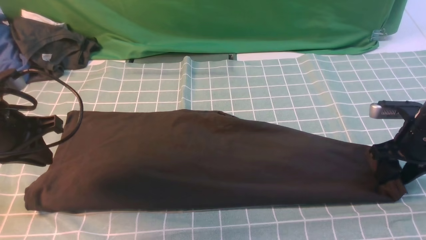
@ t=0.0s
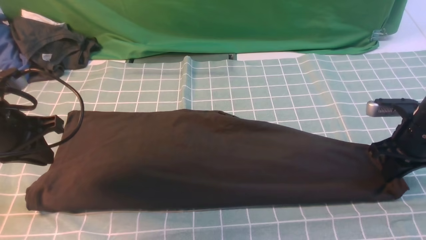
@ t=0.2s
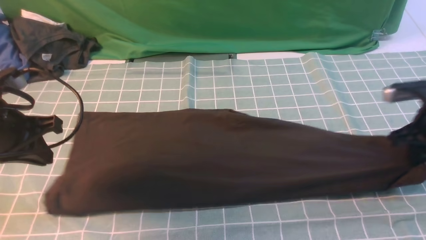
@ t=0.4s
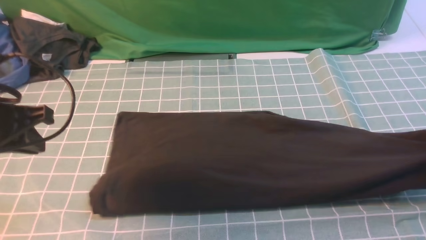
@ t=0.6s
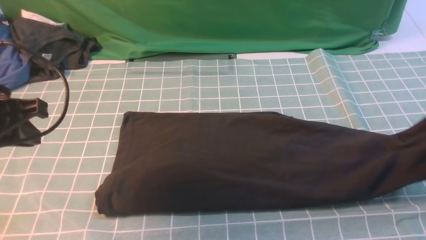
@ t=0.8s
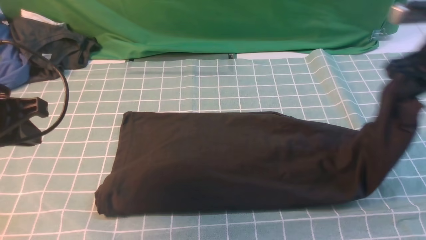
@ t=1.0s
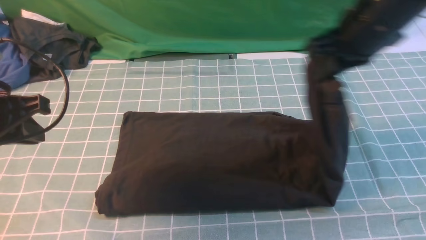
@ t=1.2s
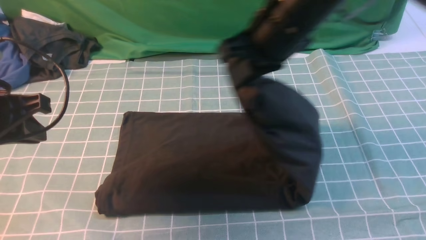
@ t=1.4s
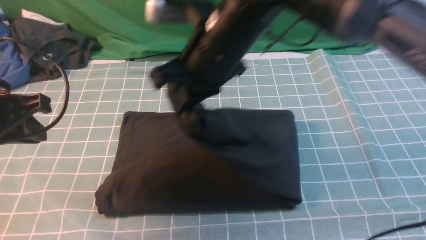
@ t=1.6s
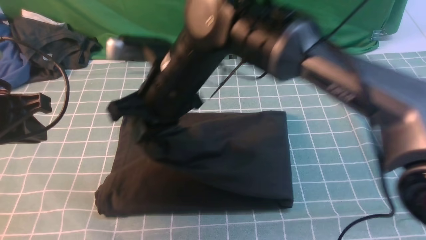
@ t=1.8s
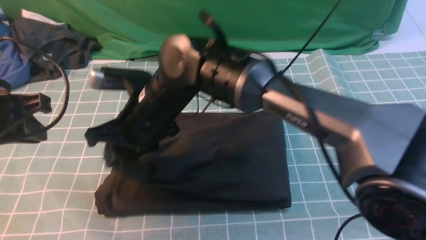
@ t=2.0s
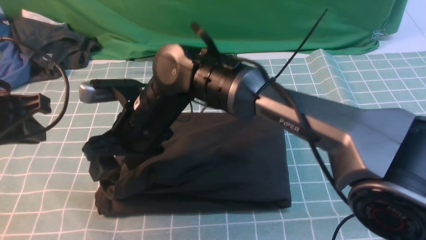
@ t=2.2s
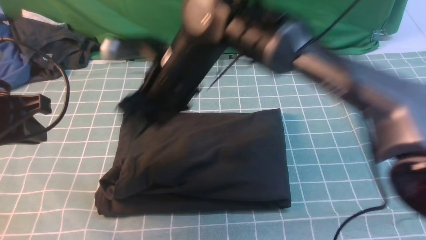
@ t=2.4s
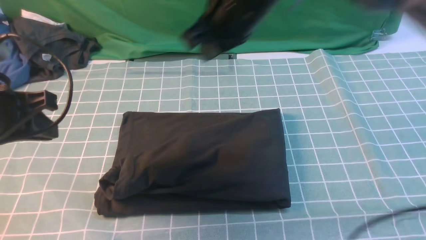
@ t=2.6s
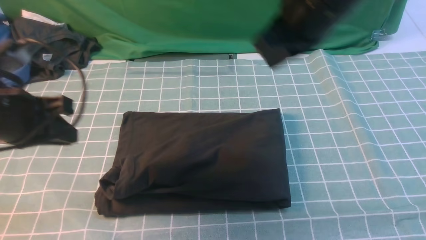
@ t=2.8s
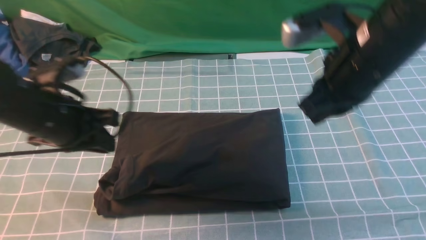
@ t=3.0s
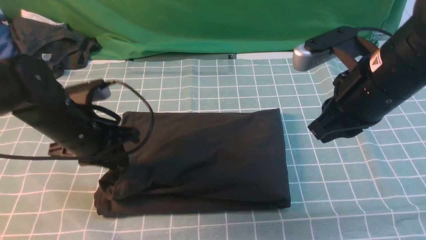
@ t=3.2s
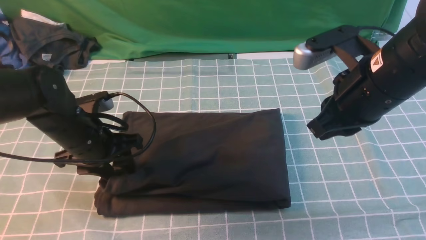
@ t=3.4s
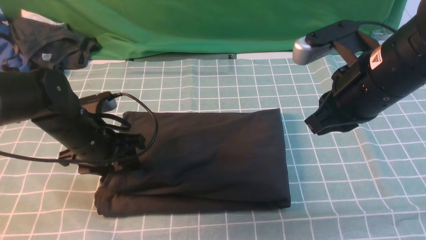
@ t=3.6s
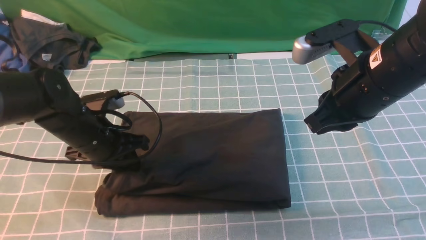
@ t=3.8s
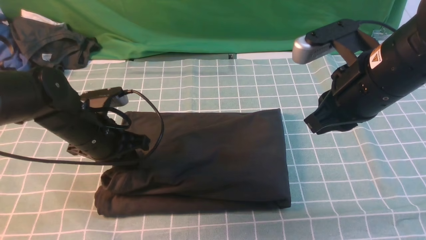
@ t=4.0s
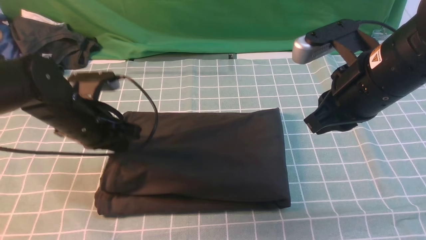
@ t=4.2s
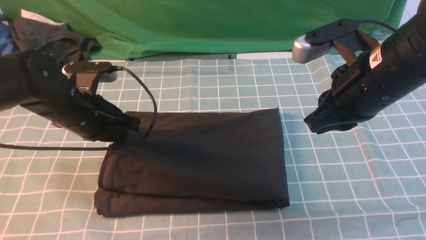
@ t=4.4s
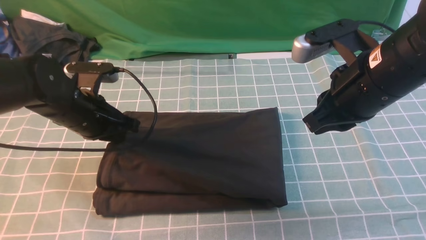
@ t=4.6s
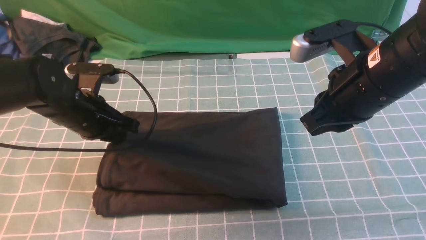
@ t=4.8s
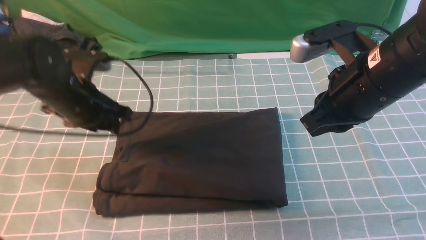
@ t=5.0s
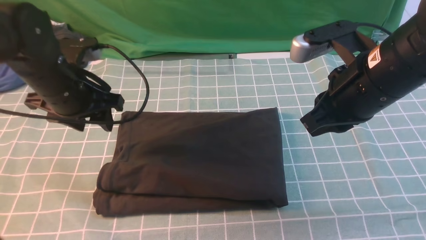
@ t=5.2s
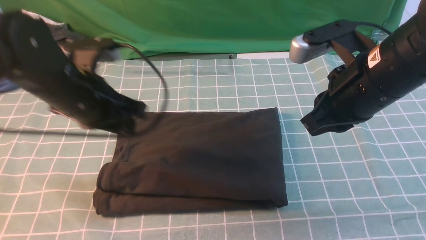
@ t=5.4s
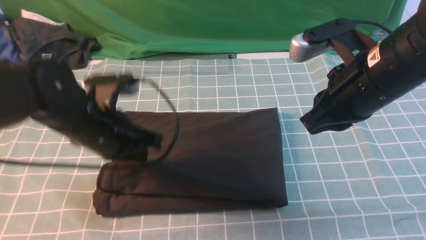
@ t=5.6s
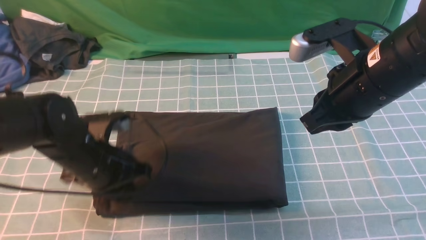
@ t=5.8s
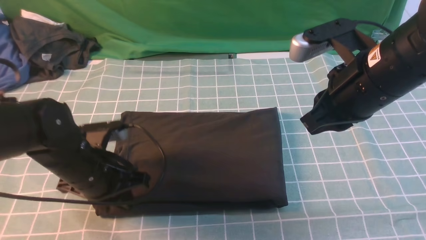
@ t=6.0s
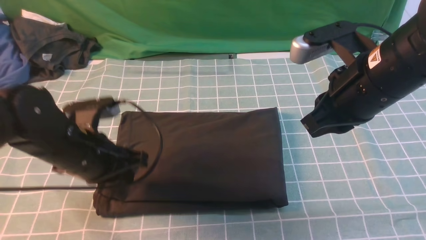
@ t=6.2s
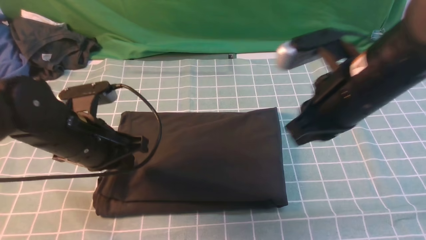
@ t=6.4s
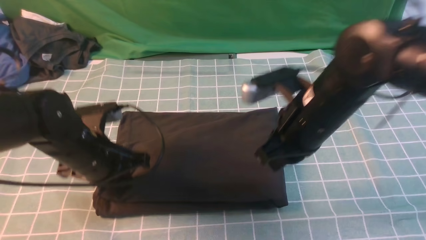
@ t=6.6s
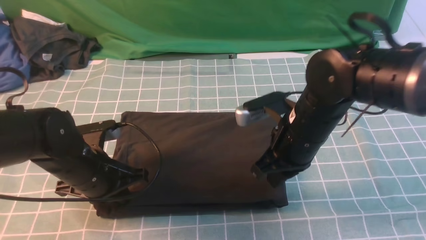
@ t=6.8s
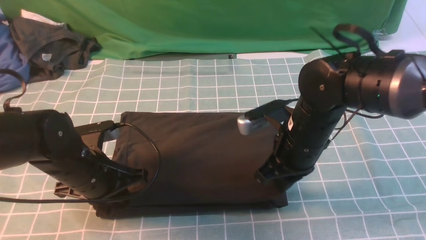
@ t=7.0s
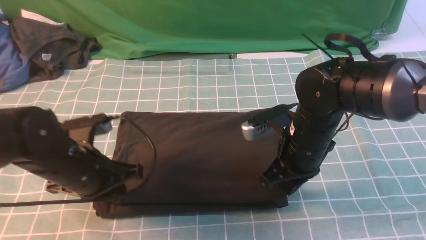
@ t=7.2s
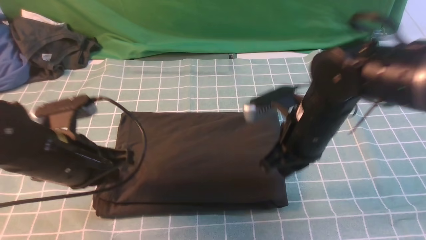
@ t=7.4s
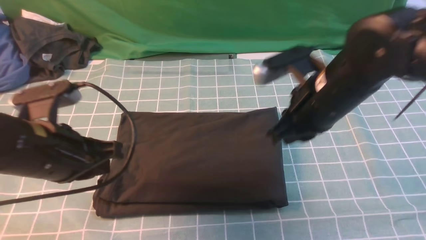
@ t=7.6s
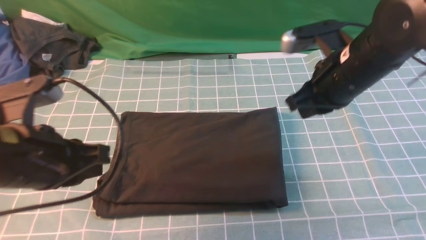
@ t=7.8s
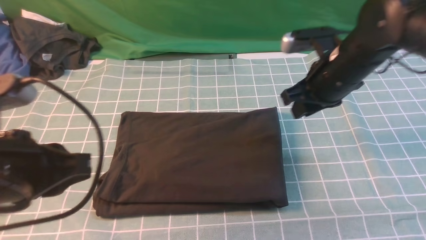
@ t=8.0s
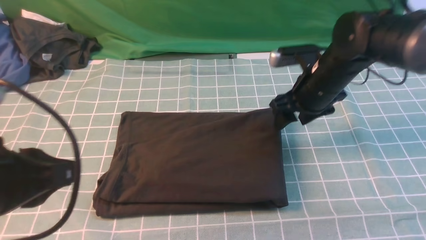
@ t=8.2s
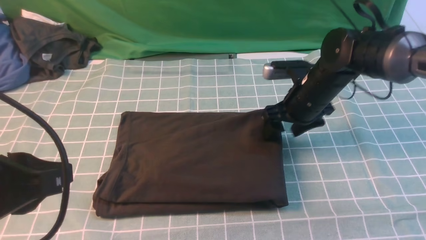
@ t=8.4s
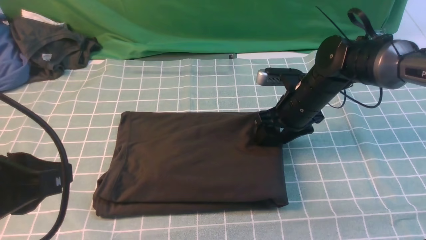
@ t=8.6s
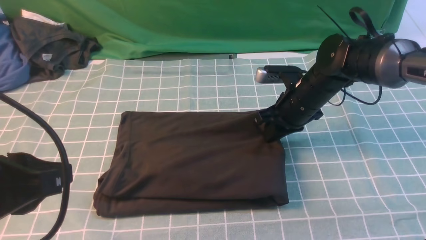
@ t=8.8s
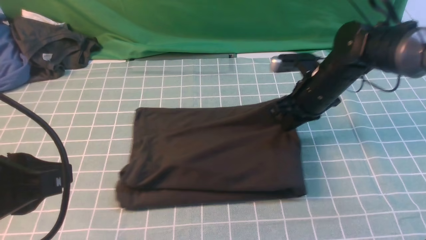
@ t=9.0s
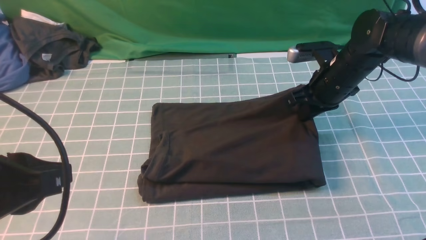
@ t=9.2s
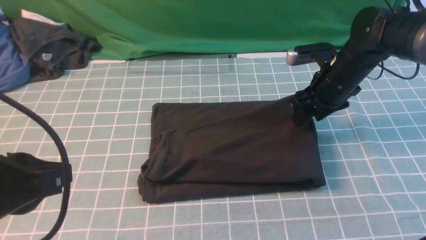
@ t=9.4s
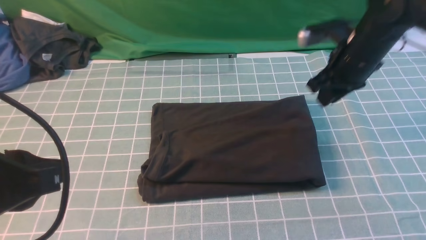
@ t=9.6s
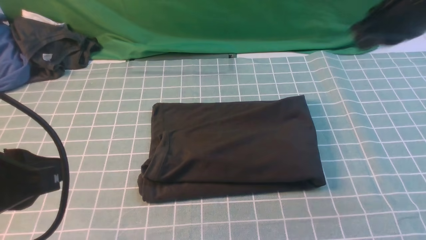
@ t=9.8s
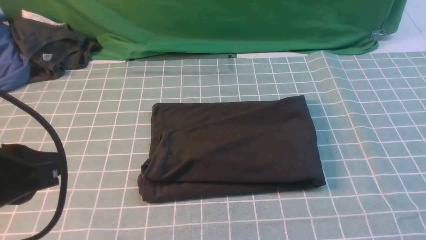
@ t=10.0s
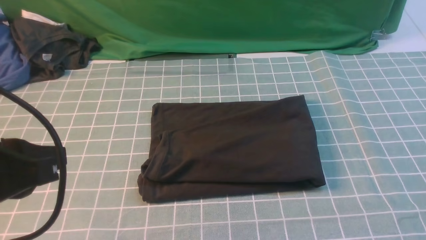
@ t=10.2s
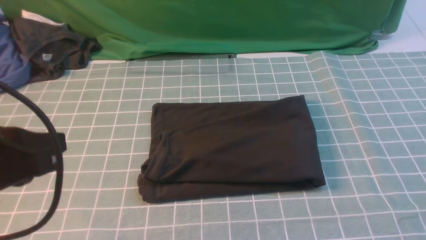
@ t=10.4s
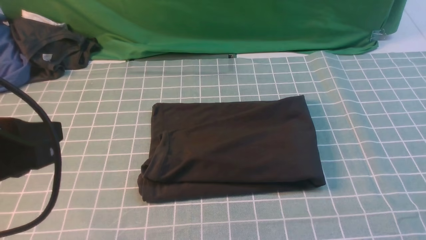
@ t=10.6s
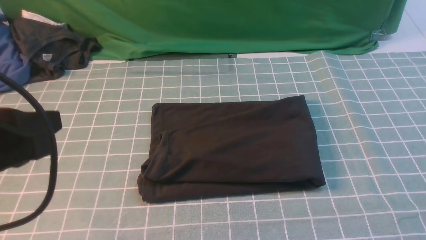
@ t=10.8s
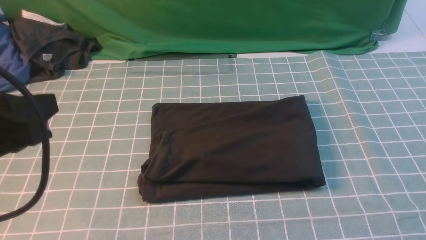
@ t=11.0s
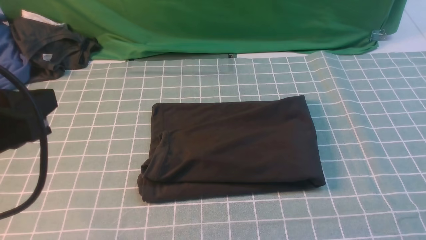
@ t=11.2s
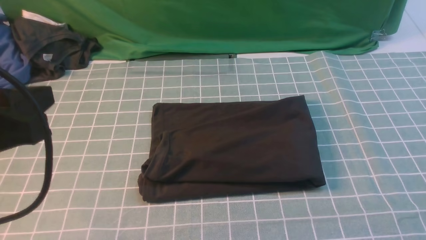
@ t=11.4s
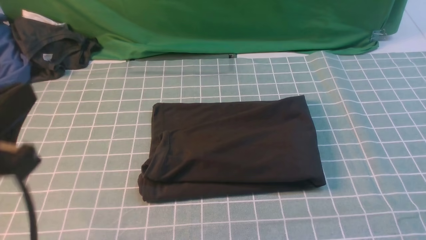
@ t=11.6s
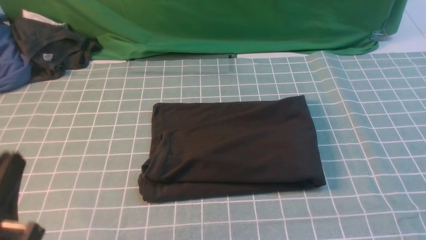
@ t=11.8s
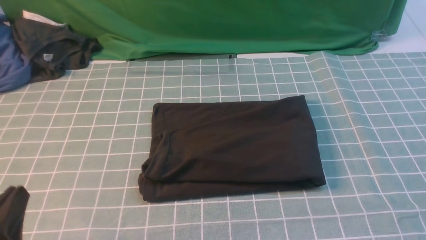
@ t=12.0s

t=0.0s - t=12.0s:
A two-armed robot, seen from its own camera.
Step, t=0.4s - t=2.6s: use the right arm to drag the right edge of the fabric to the left and folds it over the left edge.
t=0.0s - t=1.6s: The left gripper heads upward, covering approximately 5 cm, while the right gripper is displaced to the left and upward by roughly 35 cm, and closes.
t=1.6s - t=3.0s: The right gripper goes approximately 15 cm to the right, and opens, then closes again; the left gripper heads downward and to the right, covering about 10 cm.
t=3.0s - t=4.4s: The left gripper moves some 5 cm, and opens, then closes once more.
t=4.4s - t=6.0s: The left gripper is displaced backward by roughly 5 cm, and opens, then closes once more.
t=6.0s - t=7.6s: The right gripper shifts roughly 5 cm downward. The left gripper travels upward and backward by approximately 10 cm.
t=7.6s - t=9.0s: The left gripper travels backward and upward by approximately 10 cm. Meanwhile the right gripper heads forward and downward, covering some 15 cm, and opens, then closes once more.
t=9.0s - t=10.4s: The right gripper travels backward, upward and to the right by about 35 cm, and opens, then closes again.
t=10.4s - t=12.0s: The left gripper moves downward and backward, some 15 cm.

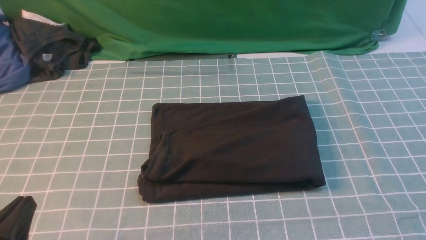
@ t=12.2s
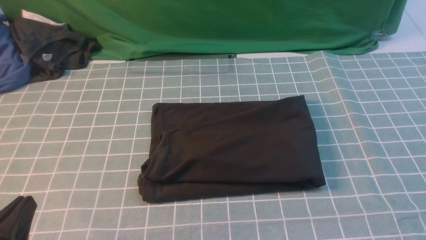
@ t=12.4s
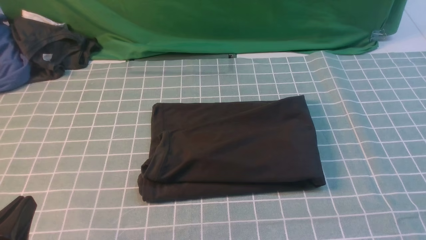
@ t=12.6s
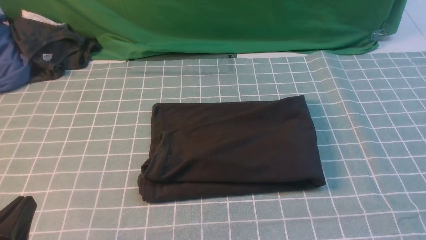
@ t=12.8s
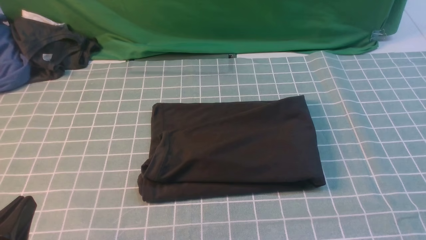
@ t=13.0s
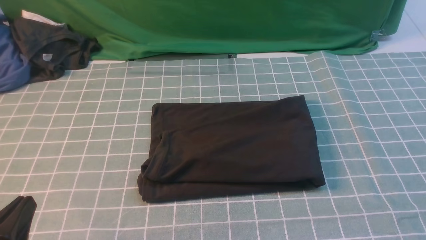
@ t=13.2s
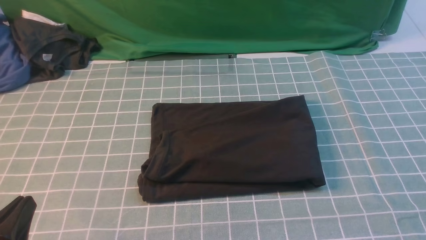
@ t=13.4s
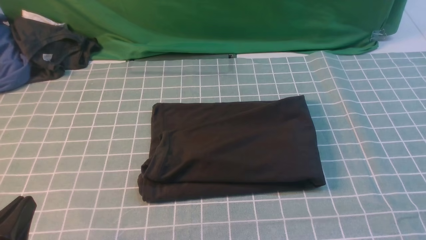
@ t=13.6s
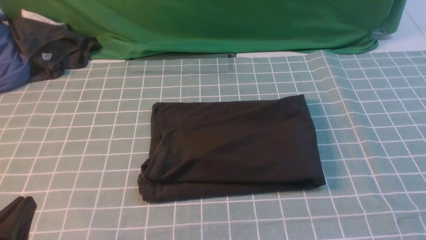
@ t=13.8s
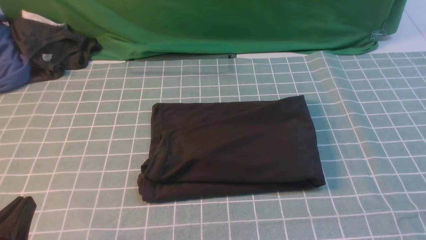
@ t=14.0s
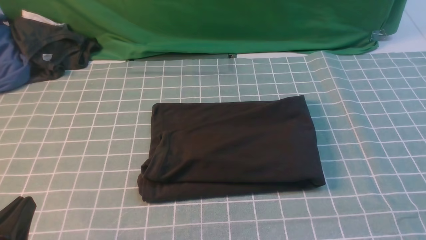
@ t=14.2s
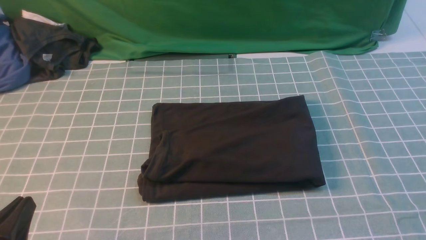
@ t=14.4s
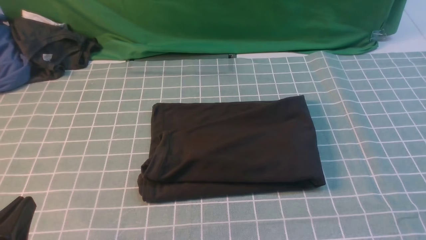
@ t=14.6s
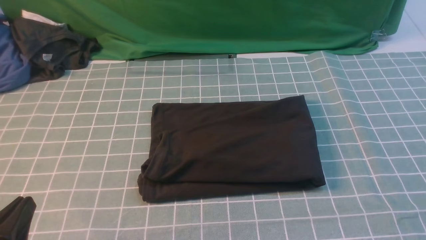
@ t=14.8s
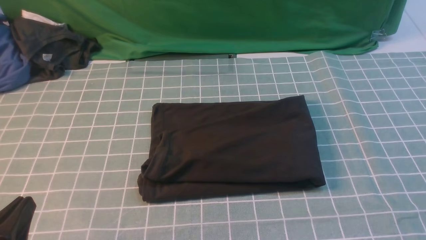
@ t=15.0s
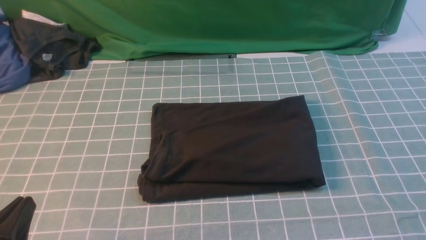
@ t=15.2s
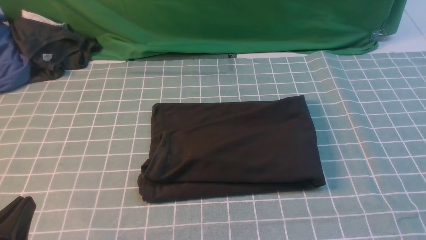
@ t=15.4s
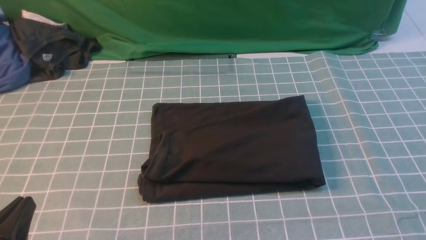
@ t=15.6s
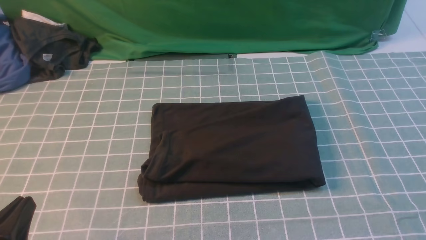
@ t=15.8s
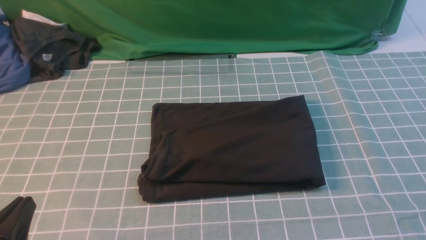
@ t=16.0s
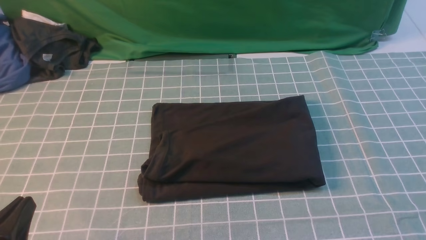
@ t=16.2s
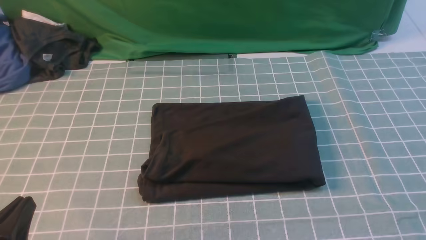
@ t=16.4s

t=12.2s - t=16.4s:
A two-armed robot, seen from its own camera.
t=15.0s - t=16.4s: The two grippers keep their place.
